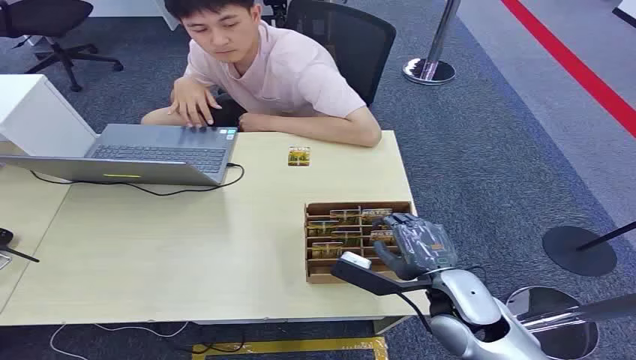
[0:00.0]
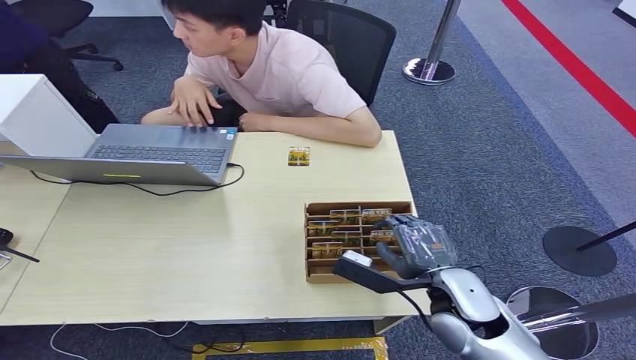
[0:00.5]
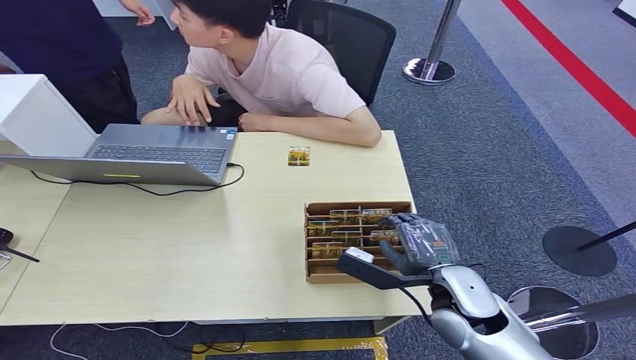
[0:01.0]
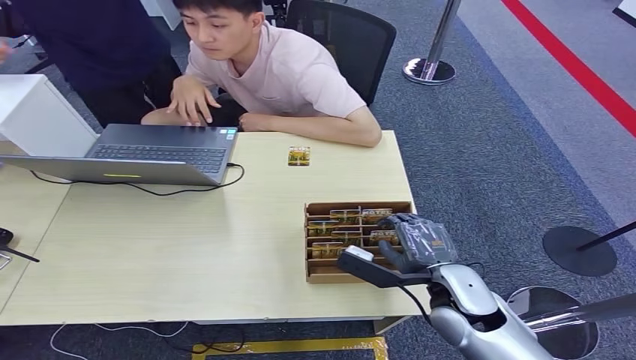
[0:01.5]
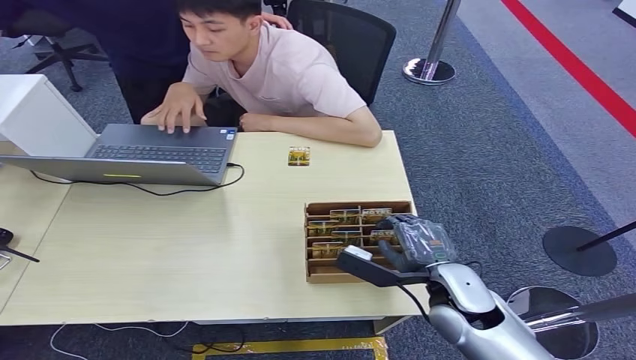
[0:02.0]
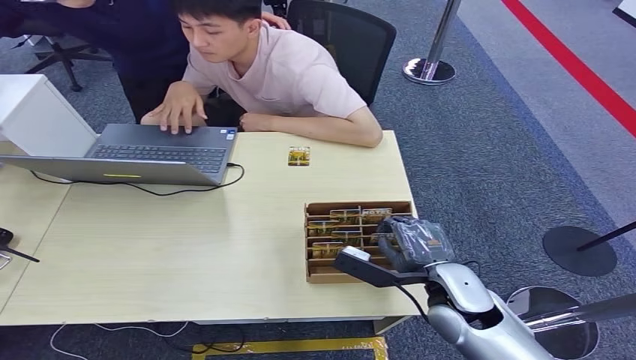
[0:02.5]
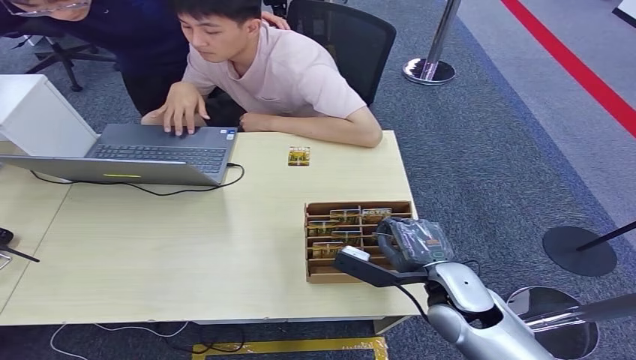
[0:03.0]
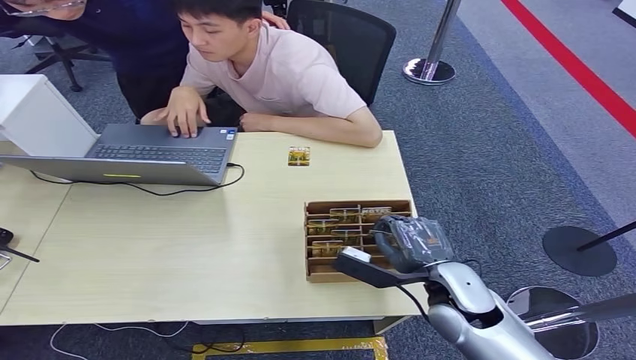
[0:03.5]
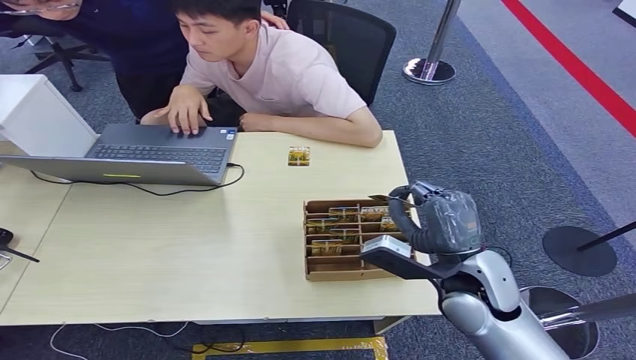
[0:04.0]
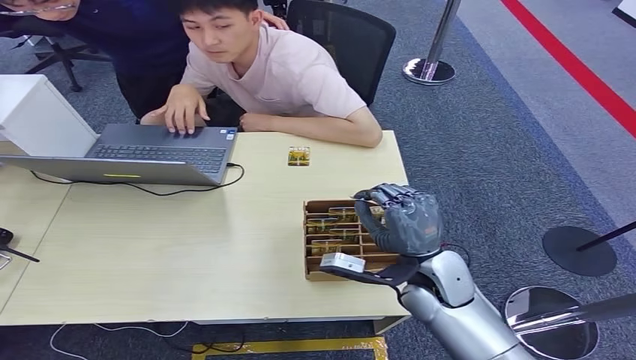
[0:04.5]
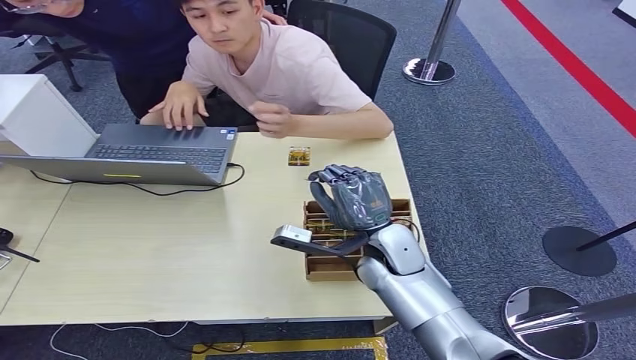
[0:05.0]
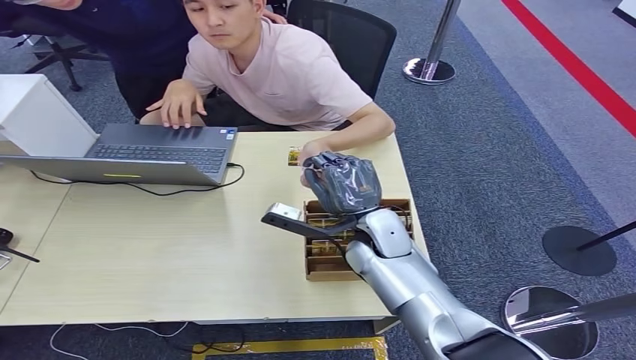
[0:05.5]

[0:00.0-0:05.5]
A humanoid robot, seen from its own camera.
Step, 0:00.0 to 0:04.0: Pick up the key card from the card box.
Step, 0:04.5 to 0:05.5: Hand the key card to the target.
0:02.0 to 0:03.5: The two hands keep their place.
0:03.5 to 0:05.5: The right hand shifts about 15 cm forward and to the left.
